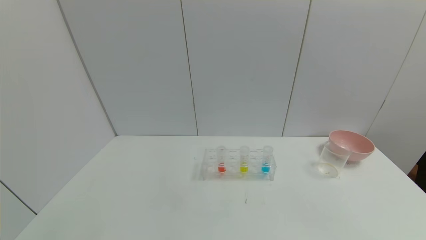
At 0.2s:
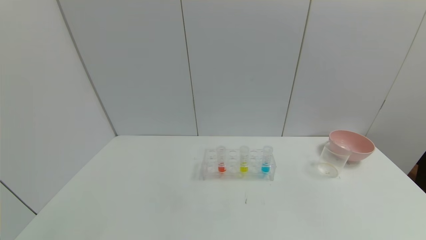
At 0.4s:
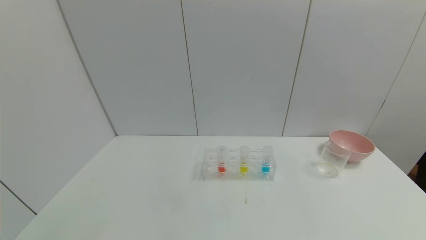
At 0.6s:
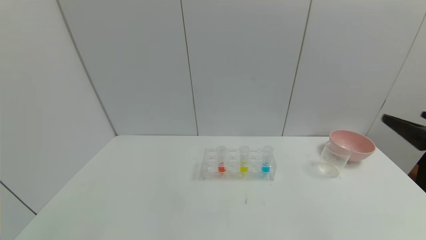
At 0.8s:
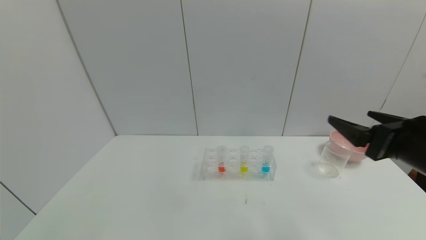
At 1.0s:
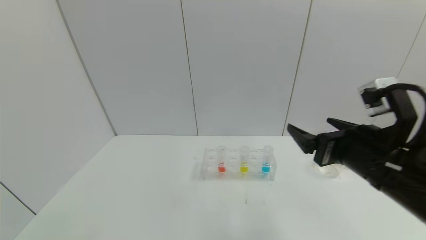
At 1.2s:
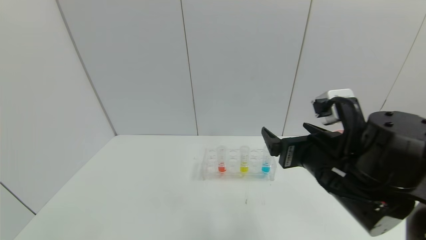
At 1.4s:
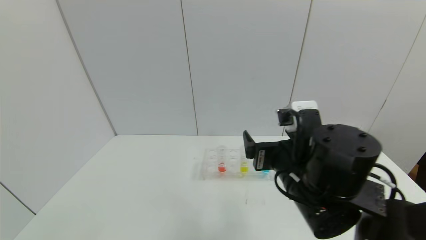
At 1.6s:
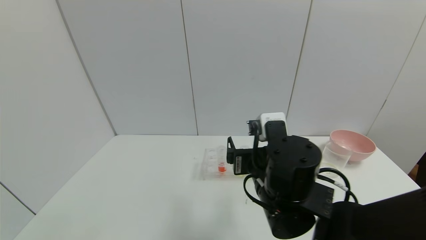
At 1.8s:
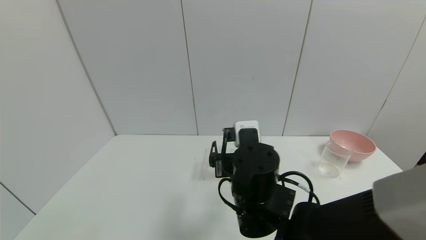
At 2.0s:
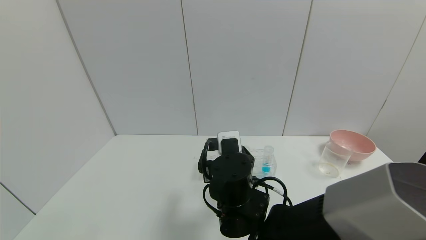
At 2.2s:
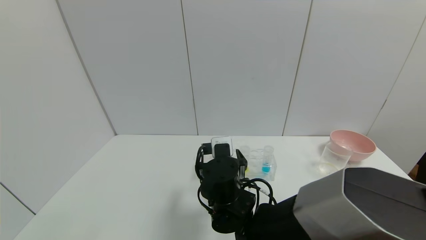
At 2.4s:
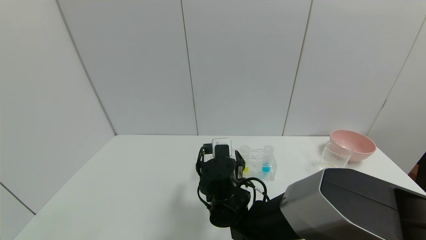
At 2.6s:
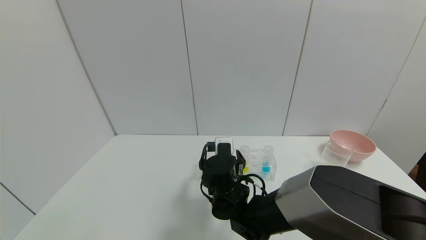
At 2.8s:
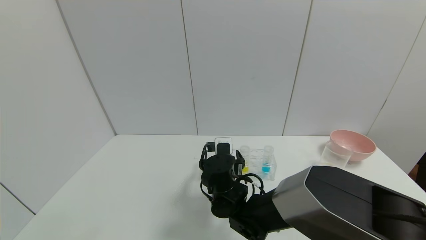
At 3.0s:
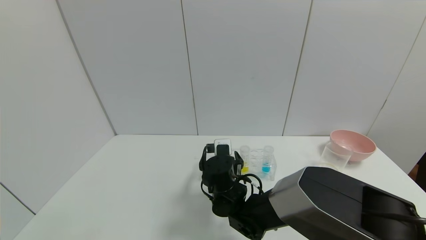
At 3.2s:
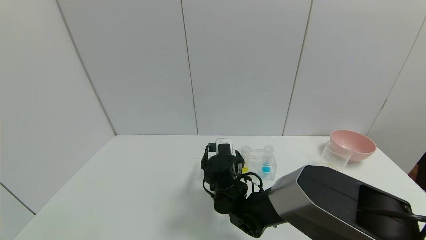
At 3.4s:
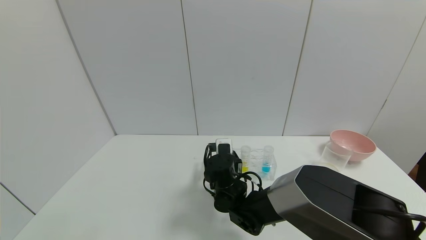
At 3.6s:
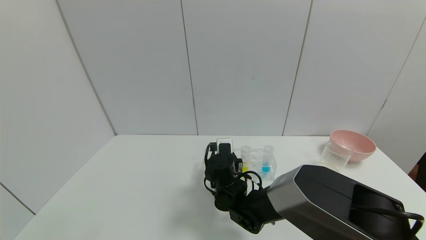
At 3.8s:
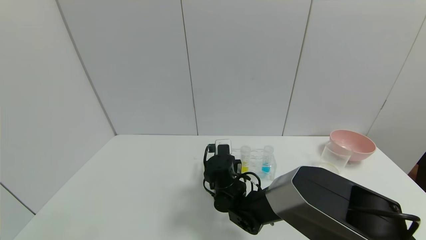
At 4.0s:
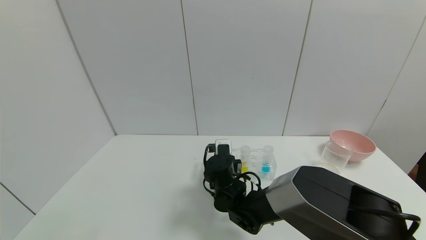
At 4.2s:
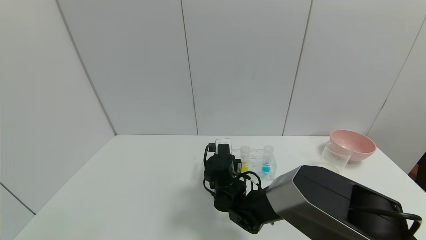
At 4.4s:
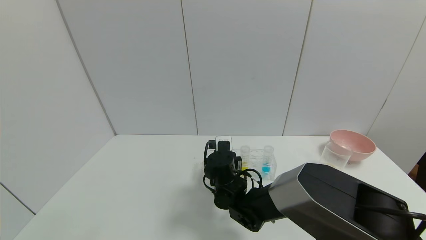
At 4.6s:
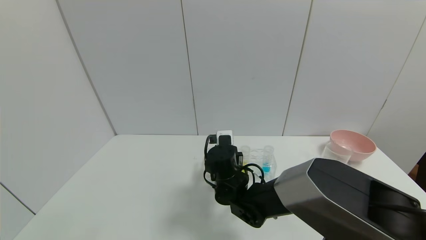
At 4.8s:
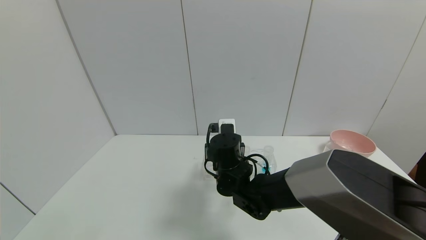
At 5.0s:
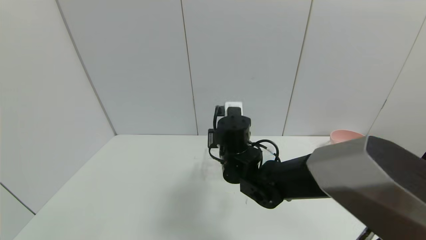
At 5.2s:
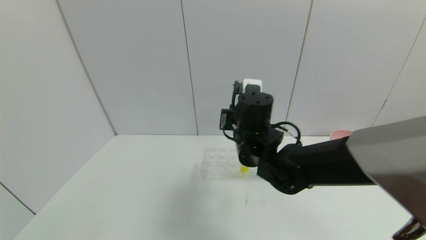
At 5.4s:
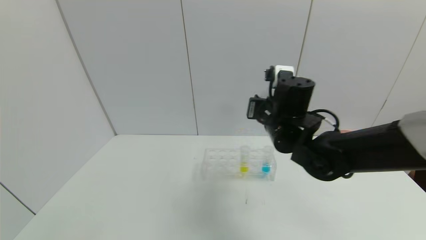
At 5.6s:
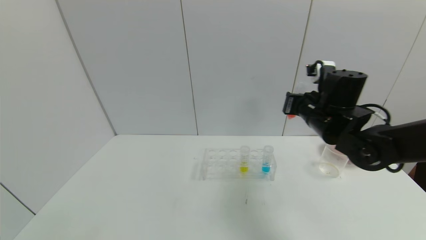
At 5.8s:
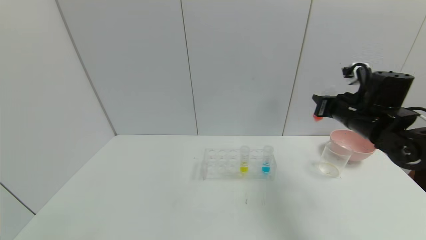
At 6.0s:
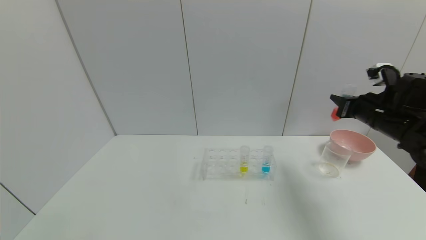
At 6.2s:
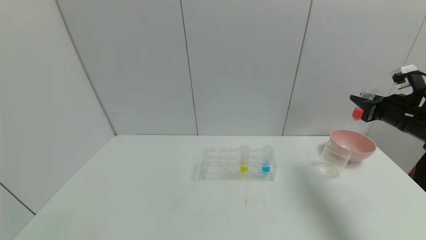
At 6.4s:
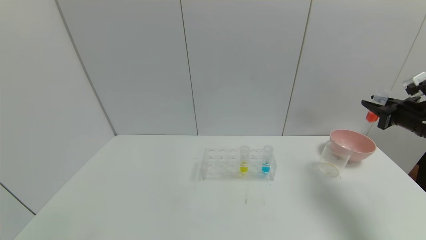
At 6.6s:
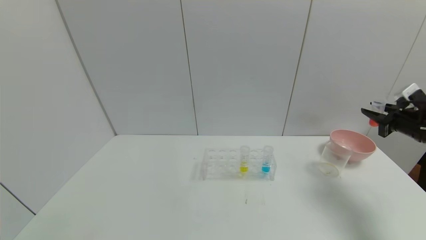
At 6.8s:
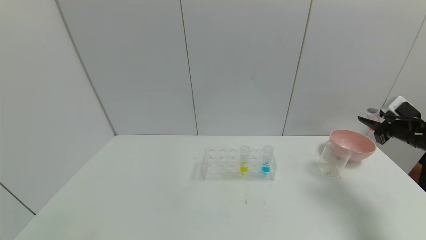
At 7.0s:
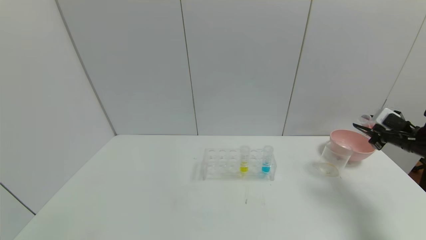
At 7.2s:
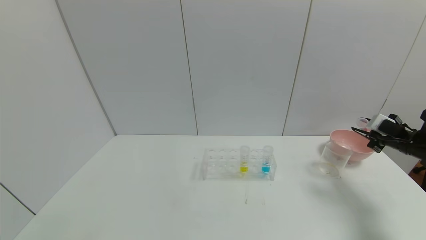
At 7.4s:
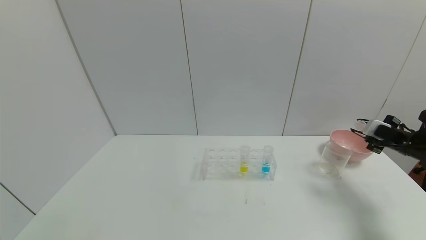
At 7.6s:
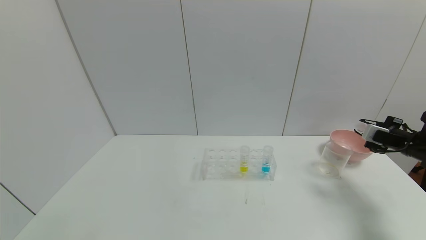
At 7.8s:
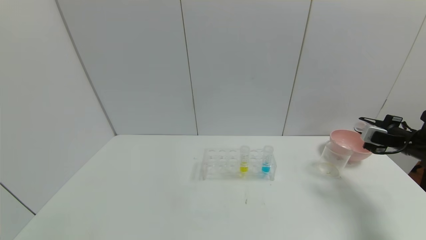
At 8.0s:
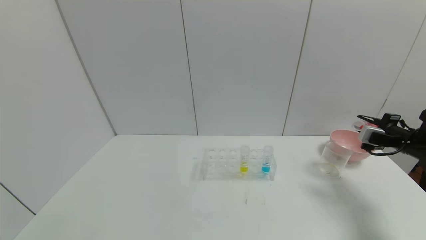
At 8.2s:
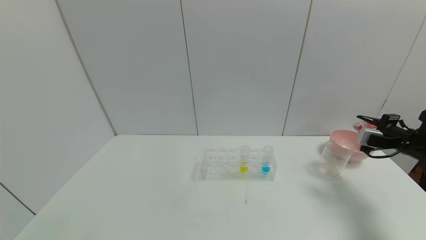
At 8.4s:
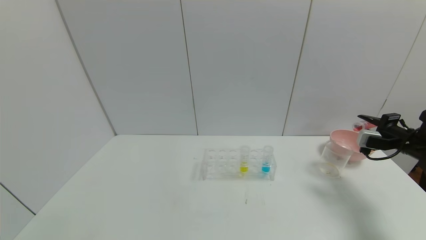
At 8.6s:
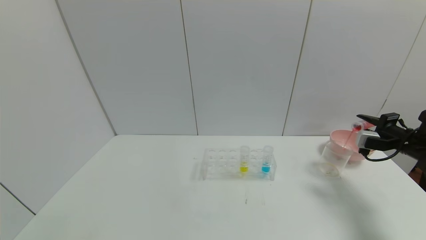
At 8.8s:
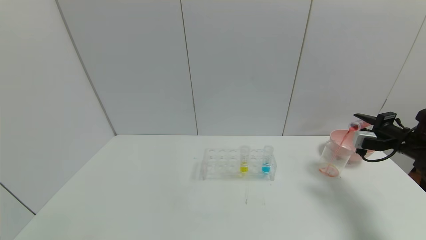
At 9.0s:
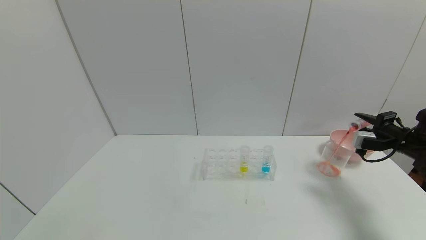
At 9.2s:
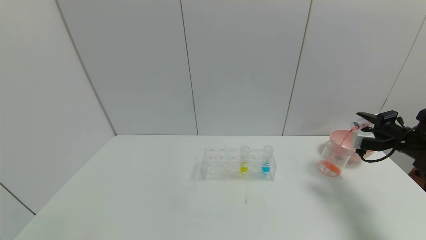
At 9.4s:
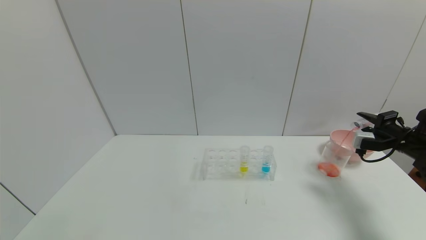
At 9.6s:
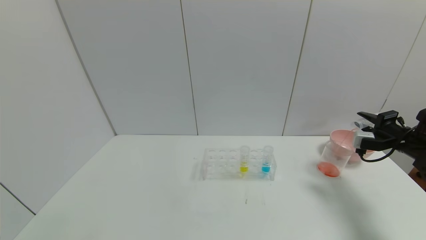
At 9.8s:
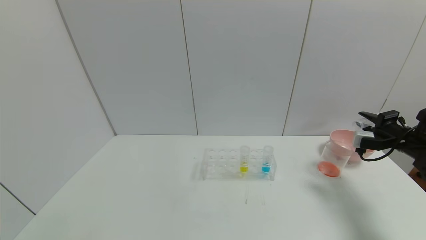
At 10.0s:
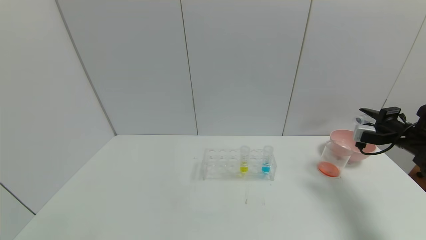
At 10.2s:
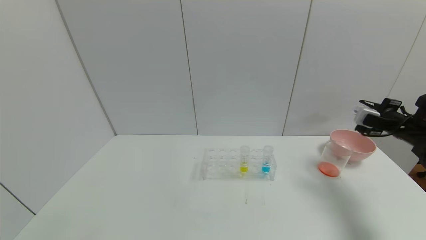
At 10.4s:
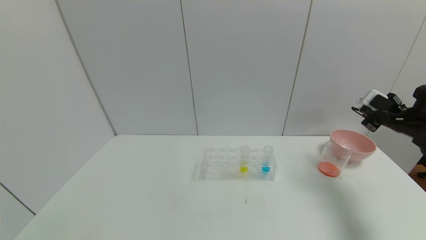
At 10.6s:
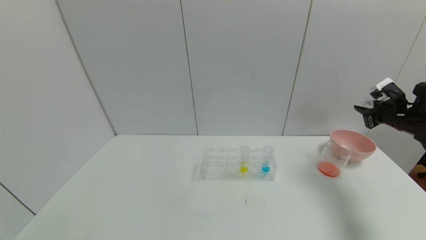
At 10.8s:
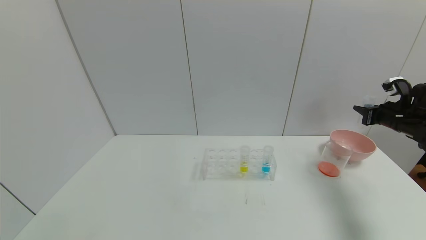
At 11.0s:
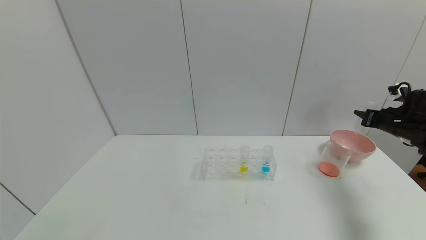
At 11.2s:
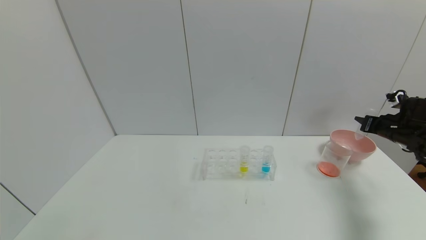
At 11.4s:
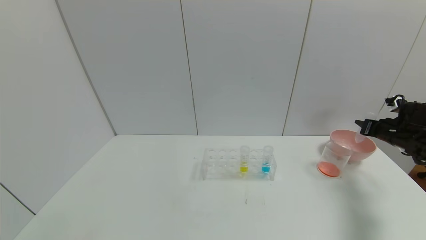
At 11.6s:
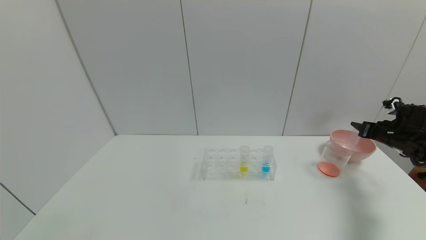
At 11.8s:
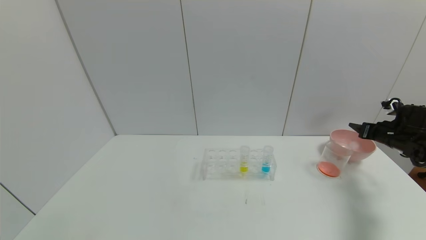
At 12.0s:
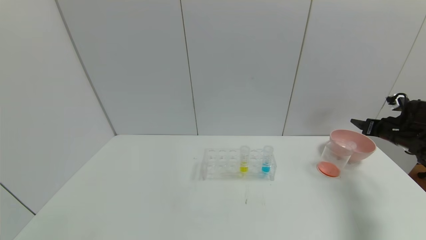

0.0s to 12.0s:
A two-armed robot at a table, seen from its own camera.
Task of the whole recording: pick up the test tube with yellow pigment and the test tube with red pigment by grippers and pour them into the beaker.
Step, 0.0s to 3.8s: Grasp the red reagent with the right gripper.
Step, 4.0s to 9.8s: Pour the red reagent into the graduated cylinder with the right gripper.
Step, 10.0s to 11.8s: Place the test tube into the bowl with the right gripper.
0.0s to 1.6s: The right gripper shifts some 40 cm to the left and forward.
1.6s to 3.0s: The right gripper moves downward, forward and to the left, approximately 15 cm.
3.0s to 4.4s: The right gripper closes up.
4.4s to 6.0s: The right gripper is displaced to the right and upward by about 40 cm.
6.0s to 7.6s: The right gripper shifts some 15 cm to the right and downward.
9.0s to 10.4s: The right gripper moves about 5 cm.
10.4s to 12.0s: The right gripper opens its fingers.

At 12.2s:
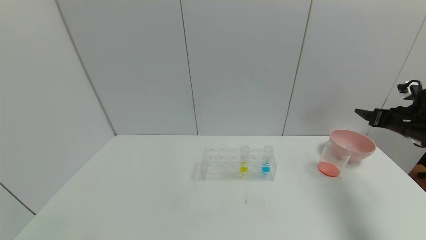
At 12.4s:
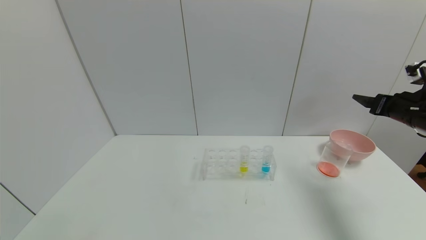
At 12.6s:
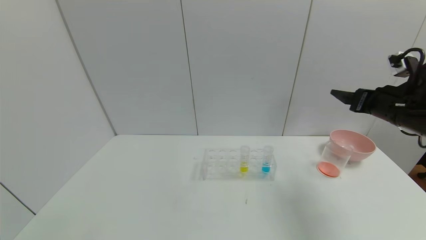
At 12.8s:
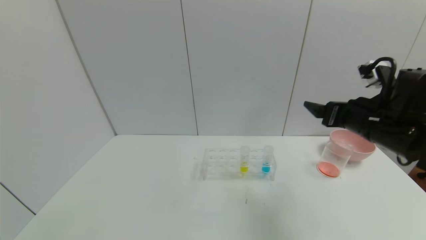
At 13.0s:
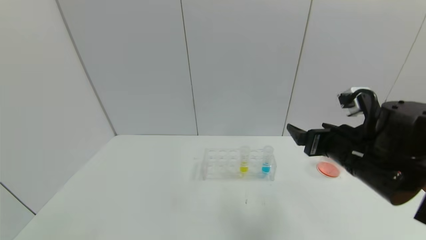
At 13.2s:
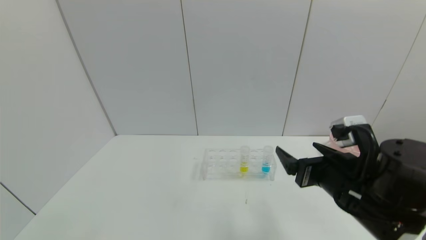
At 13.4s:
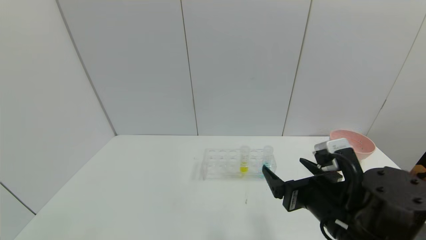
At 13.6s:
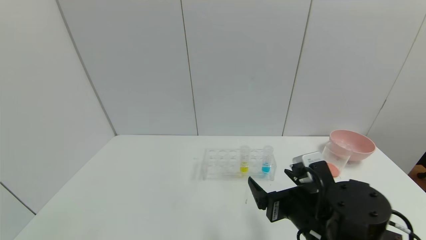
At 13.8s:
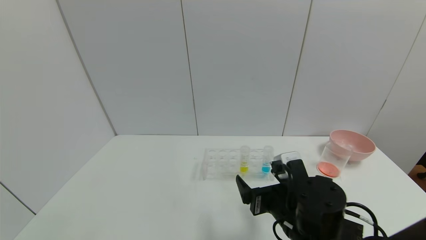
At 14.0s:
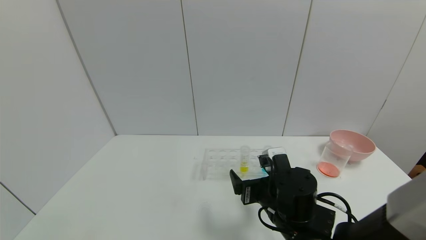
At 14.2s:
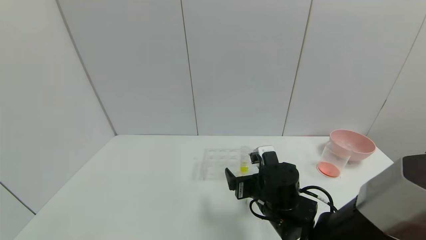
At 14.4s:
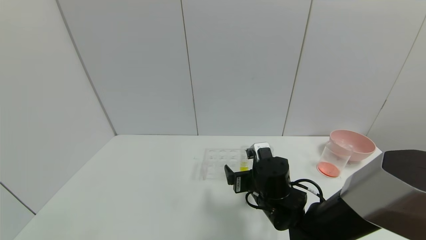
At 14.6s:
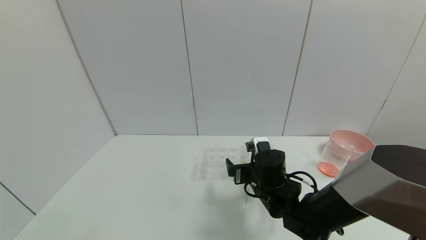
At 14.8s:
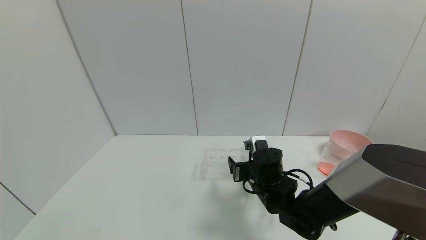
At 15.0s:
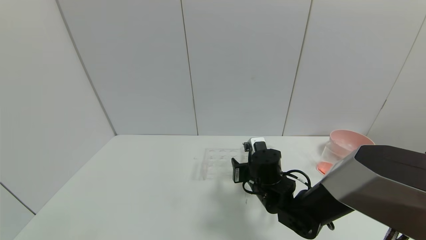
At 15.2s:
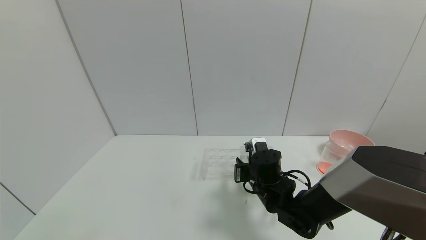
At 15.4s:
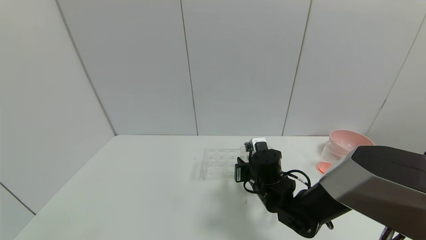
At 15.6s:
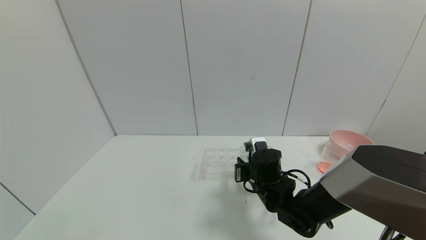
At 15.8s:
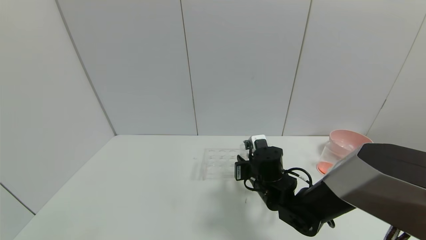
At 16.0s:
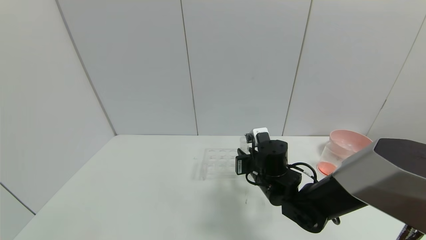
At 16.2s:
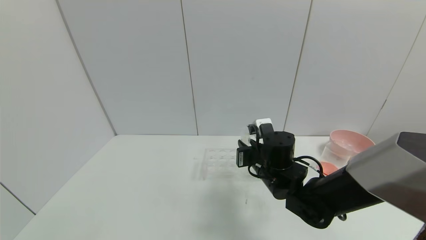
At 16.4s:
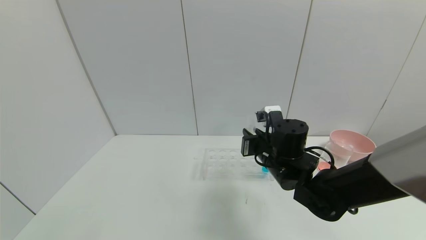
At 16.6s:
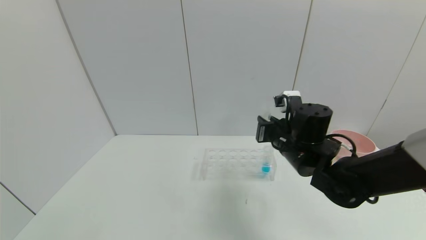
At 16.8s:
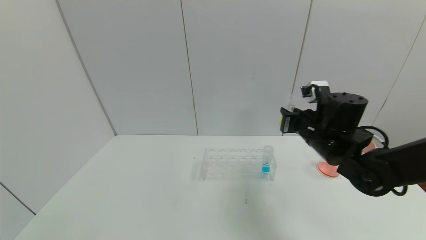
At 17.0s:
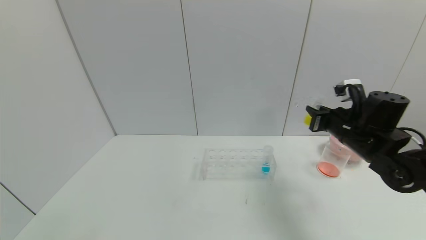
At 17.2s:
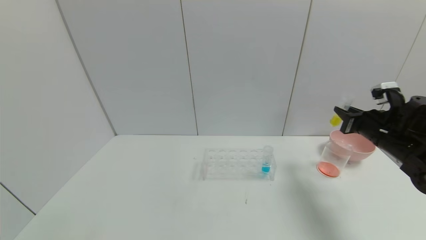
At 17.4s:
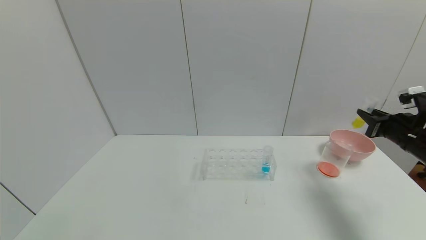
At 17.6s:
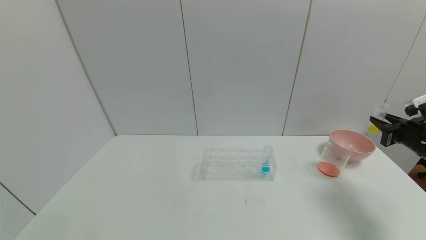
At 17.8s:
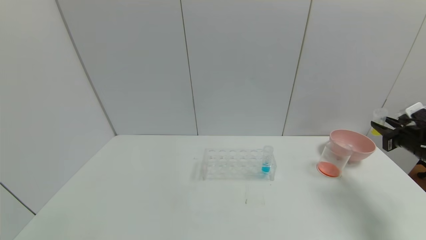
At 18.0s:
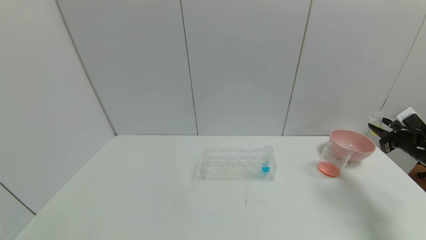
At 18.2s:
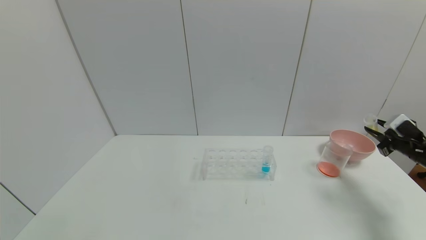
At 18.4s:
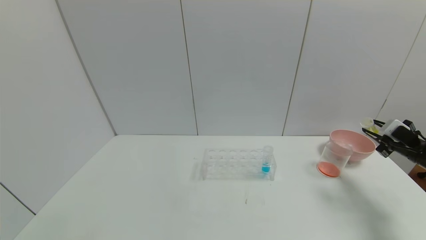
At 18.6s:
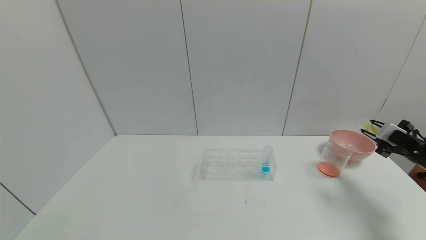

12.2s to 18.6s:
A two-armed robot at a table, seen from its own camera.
Task of the whole recording: pick up the test tube with yellow pigment and the test tube with red pigment by grippers and pour them into the beaker.
Step, 12.2s to 15.2s: Grasp the yellow reagent with the right gripper.
12.2s to 13.8s: The right gripper is displaced to the left and backward by approximately 35 cm.
13.8s to 15.4s: The right gripper is displaced forward by roughly 10 cm, and closes up.
15.4s to 17.0s: The right gripper shifts about 25 cm to the right and upward.
17.0s to 18.6s: The right gripper shifts some 20 cm to the right.
